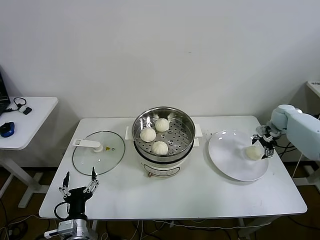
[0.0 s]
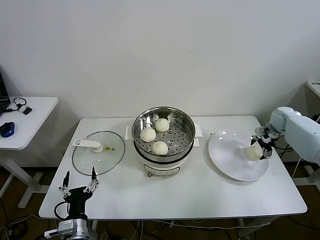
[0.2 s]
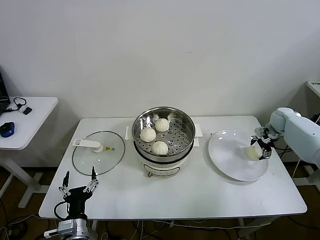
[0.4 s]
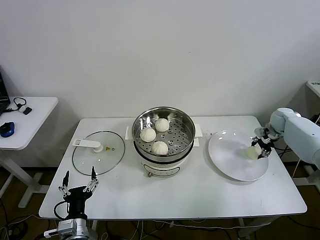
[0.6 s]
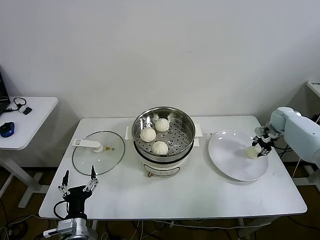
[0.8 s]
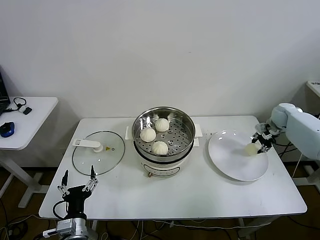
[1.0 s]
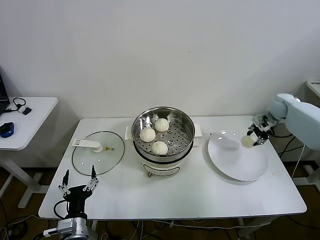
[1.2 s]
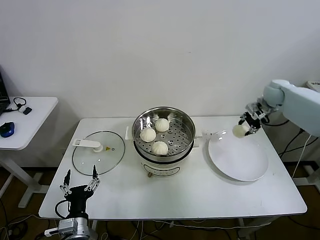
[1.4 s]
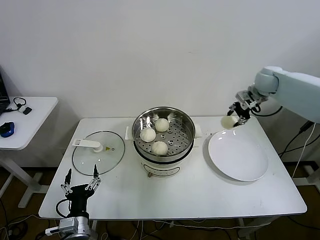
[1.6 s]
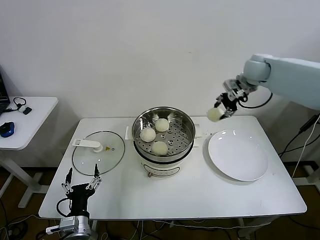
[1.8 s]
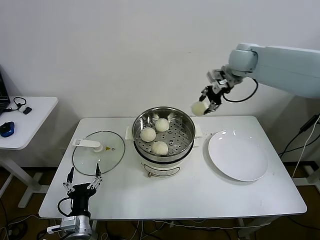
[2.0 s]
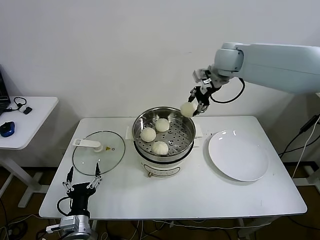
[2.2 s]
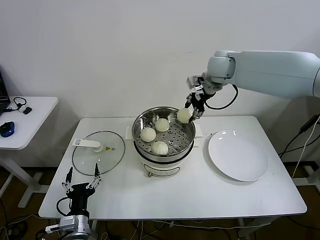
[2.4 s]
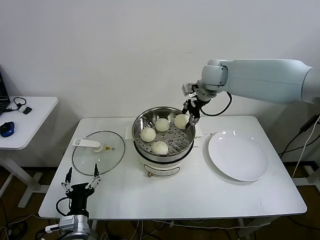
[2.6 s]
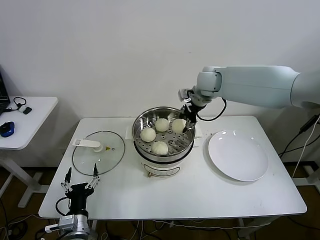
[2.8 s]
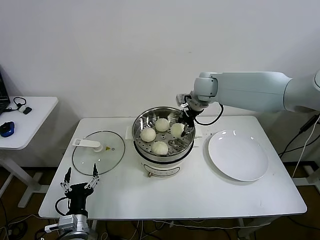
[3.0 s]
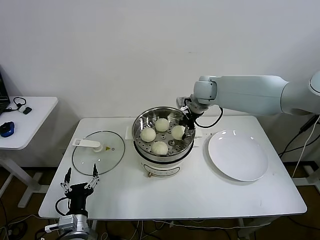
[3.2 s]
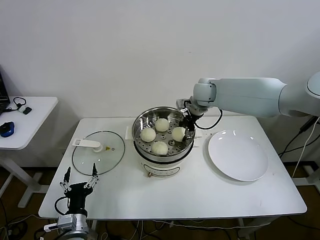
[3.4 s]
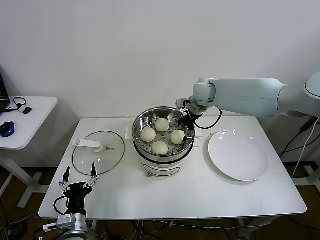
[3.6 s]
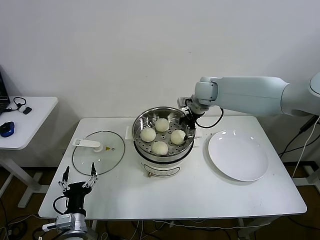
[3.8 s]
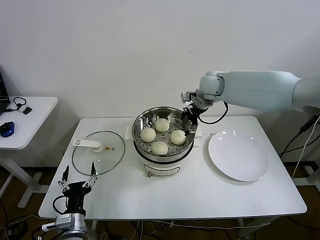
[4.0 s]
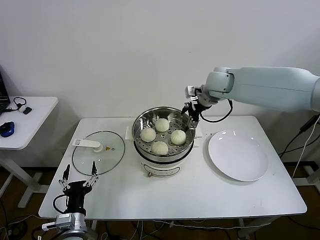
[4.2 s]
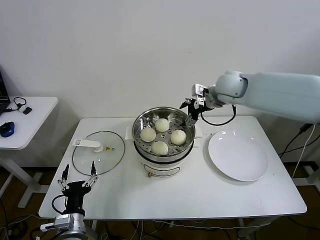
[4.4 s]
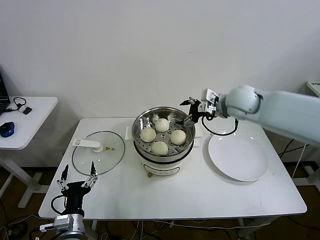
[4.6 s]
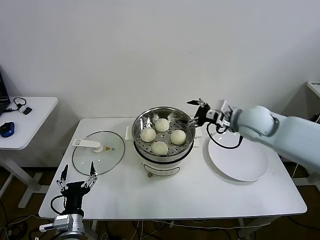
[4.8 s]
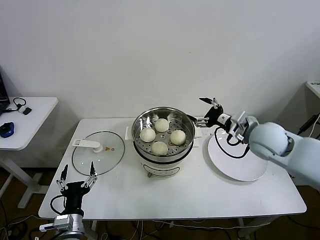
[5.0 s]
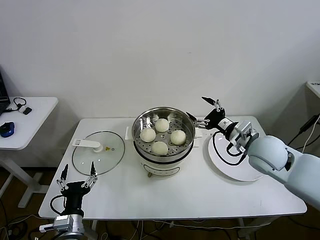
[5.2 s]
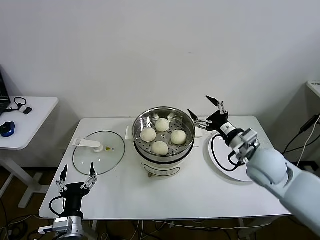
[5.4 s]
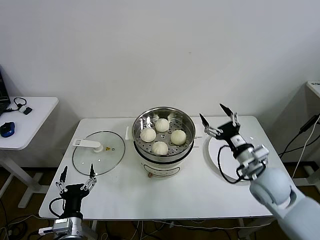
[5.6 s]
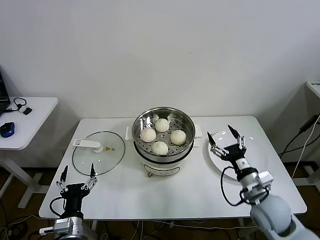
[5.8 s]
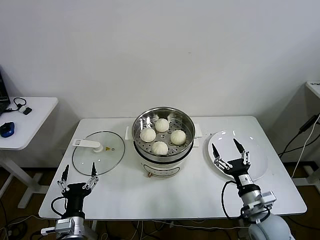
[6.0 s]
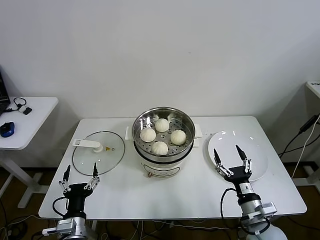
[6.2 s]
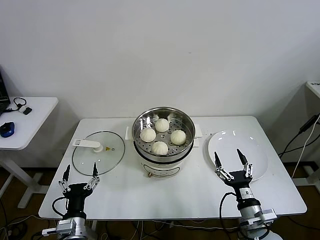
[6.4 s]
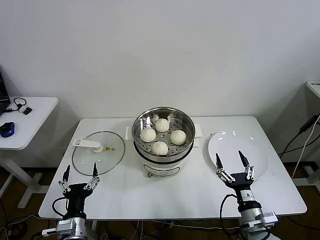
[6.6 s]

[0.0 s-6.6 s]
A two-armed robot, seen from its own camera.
Step, 0.8 to 3.6 s: Place the baozi on the steamer with right gripper.
0.0 to 1.6 s: The right gripper is displaced upward and to the left by approximately 20 cm, and closes its fingers.
1.6 to 3.2 s: The right gripper is displaced to the left by about 20 cm.
3.2 to 5.0 s: The right gripper shifts approximately 25 cm backward and to the right, and opens its fingers.
5.0 to 6.6 s: The right gripper travels backward and downward by approximately 30 cm.

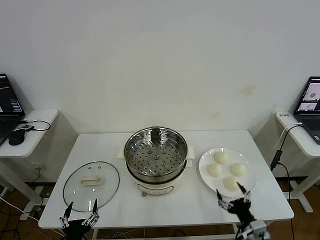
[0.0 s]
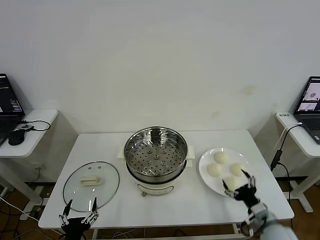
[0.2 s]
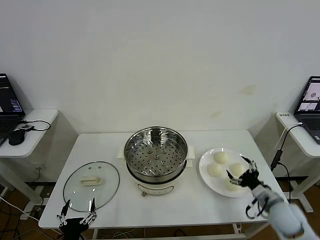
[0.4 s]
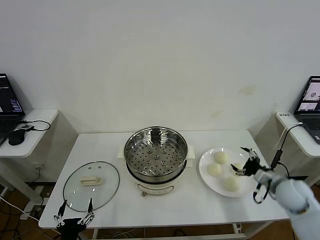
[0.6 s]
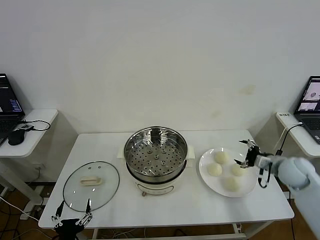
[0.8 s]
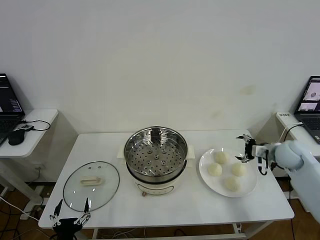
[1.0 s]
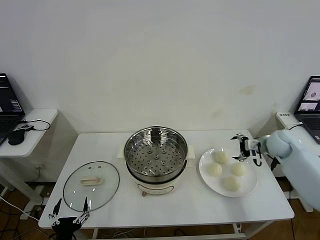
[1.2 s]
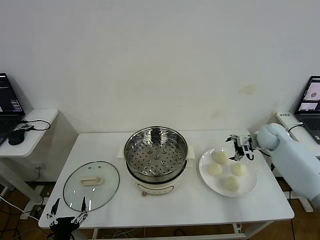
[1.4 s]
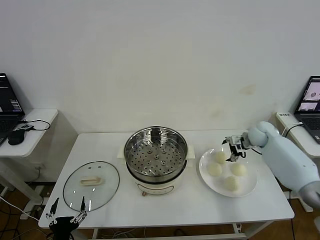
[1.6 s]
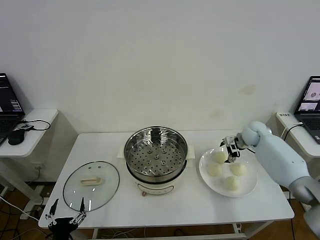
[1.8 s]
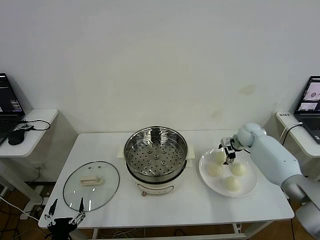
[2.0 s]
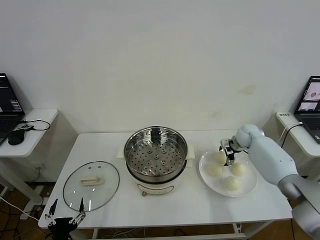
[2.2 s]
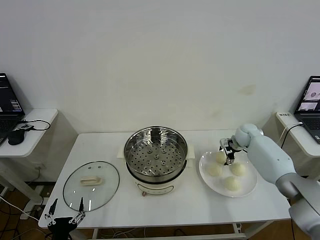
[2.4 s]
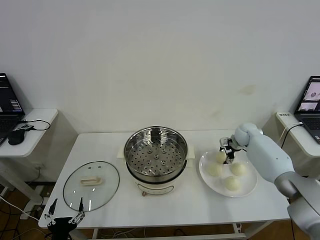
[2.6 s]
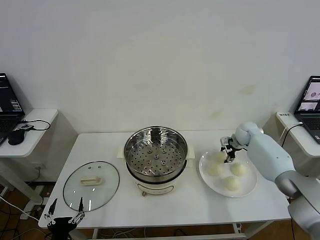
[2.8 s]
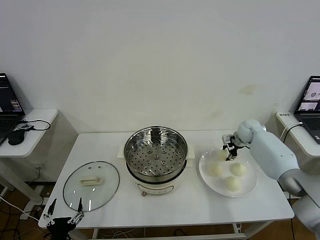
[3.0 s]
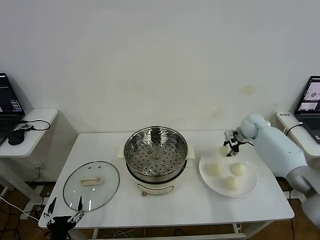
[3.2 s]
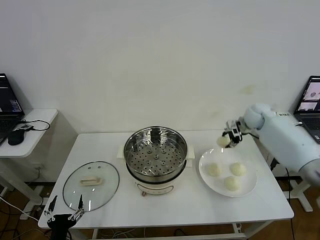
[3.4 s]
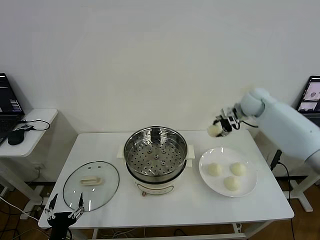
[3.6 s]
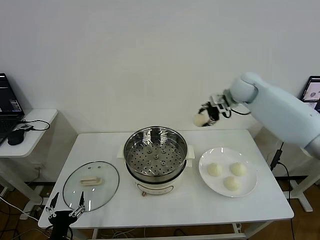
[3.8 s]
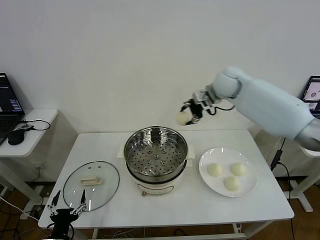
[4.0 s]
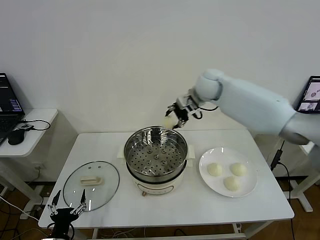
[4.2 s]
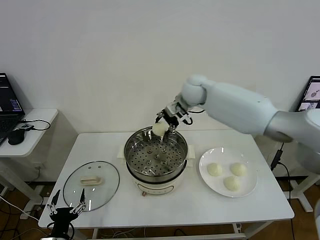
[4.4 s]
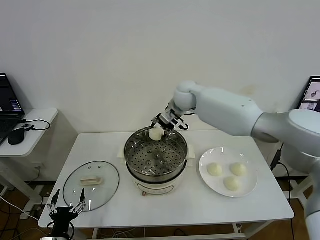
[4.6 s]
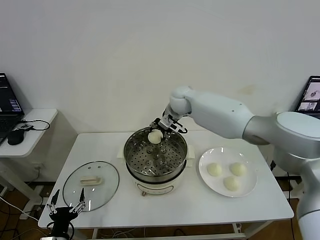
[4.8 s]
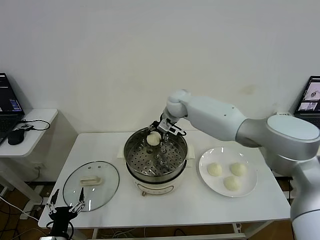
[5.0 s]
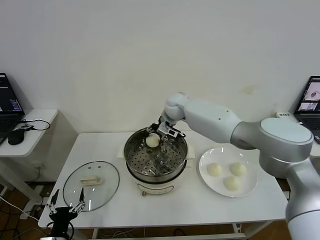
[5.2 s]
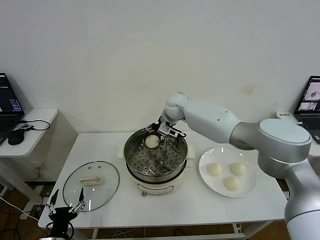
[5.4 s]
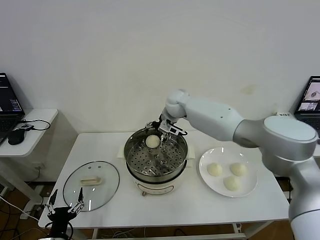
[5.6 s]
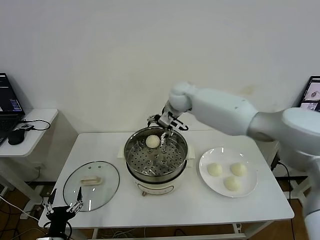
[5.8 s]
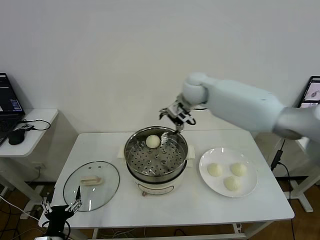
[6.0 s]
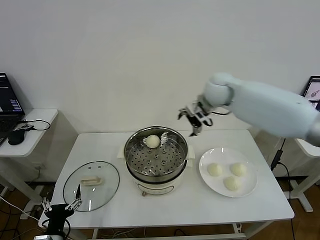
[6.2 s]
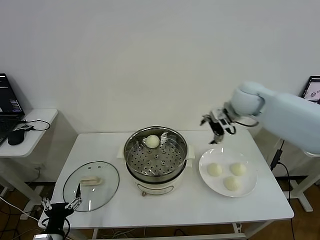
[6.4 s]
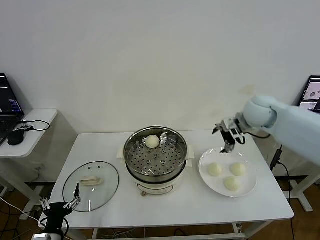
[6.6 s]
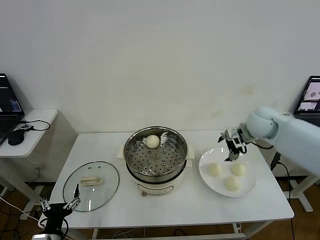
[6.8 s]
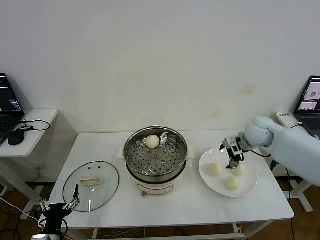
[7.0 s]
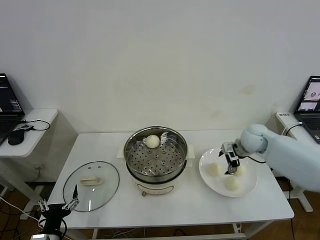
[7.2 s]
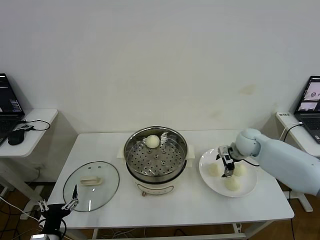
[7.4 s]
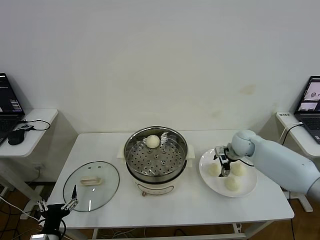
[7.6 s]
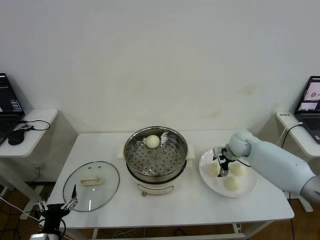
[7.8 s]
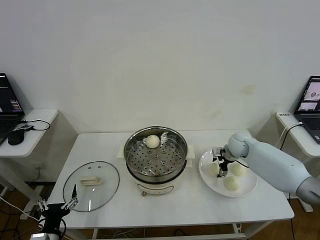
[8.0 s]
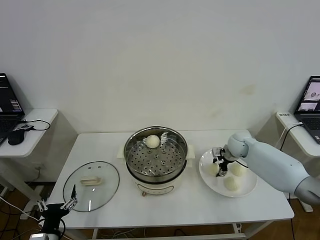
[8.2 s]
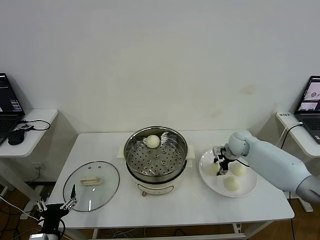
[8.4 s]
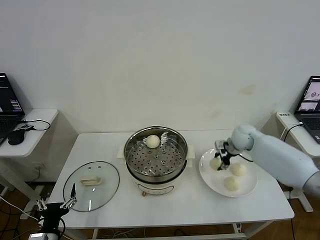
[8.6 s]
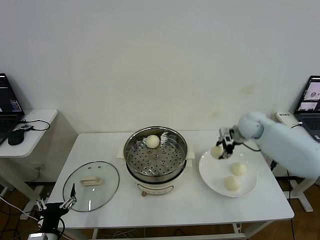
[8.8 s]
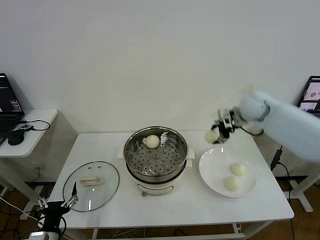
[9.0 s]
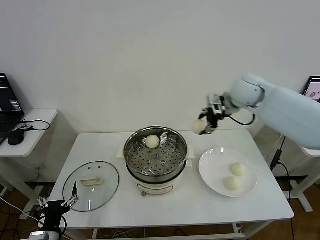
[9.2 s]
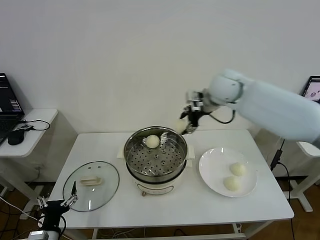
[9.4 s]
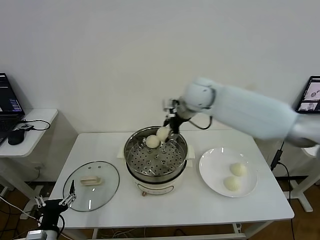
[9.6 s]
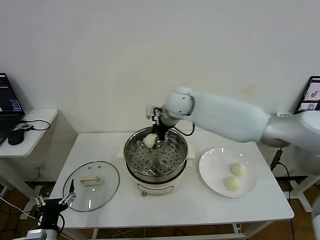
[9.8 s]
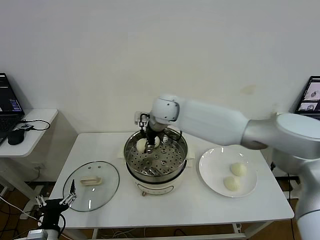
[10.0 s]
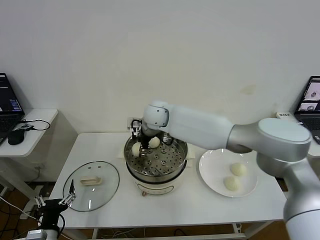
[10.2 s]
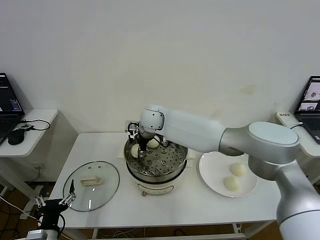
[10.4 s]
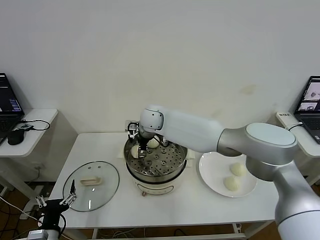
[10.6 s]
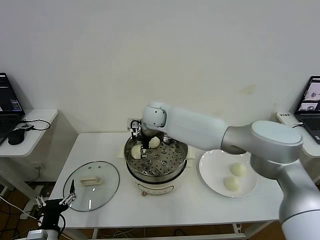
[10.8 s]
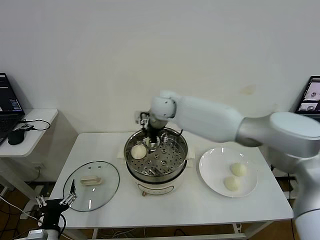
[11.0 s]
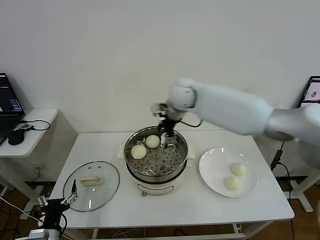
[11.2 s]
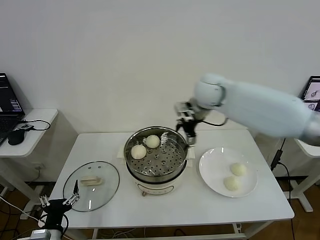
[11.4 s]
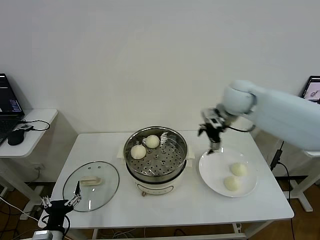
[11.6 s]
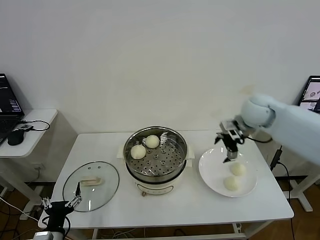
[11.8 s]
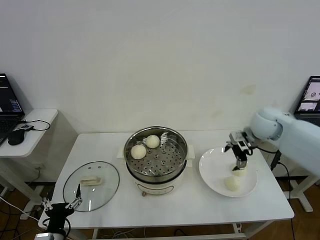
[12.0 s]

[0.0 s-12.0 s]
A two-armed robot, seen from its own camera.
Step, 0.0 to 2.8 s: Grasp the baozi in the plate with right gripper.
Step, 3.0 to 5.6 s: Place the baozi on the steamer with right gripper.
Step, 5.8 to 8.4 s: Grasp the baozi in the plate with right gripper.
Step, 8.6 to 10.6 s: Place the baozi on the steamer with right gripper.
1.6 to 3.0 s: The right gripper closes.
3.0 to 4.4 s: The right gripper is displaced to the left and upward by about 30 cm.
4.4 to 6.0 s: The right gripper moves to the right, about 5 cm, and opens its fingers.
6.0 to 7.6 s: The right gripper is displaced downward and to the right by some 25 cm.
7.6 to 9.0 s: The right gripper shifts some 20 cm upward, and closes.
9.0 to 10.4 s: The right gripper moves to the left, some 30 cm.
10.4 to 12.0 s: The right gripper moves to the right, roughly 35 cm, and opens its fingers.

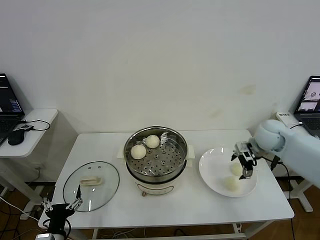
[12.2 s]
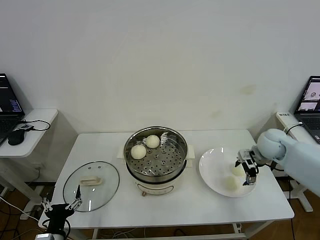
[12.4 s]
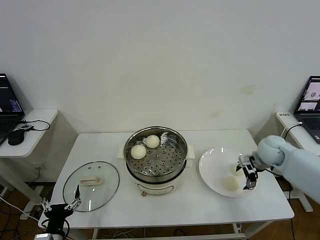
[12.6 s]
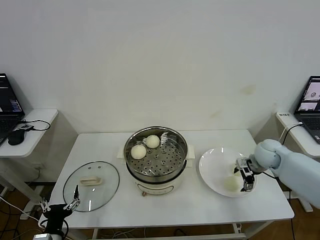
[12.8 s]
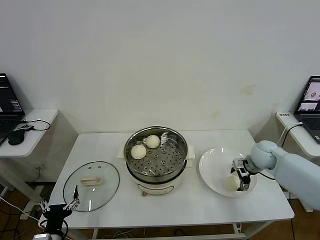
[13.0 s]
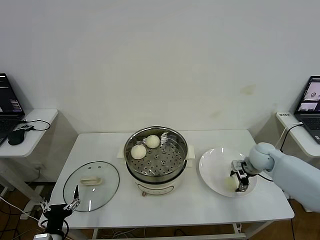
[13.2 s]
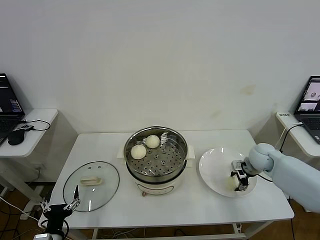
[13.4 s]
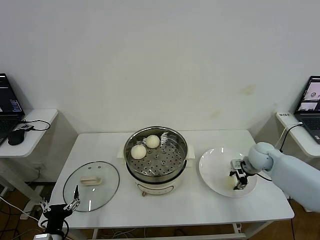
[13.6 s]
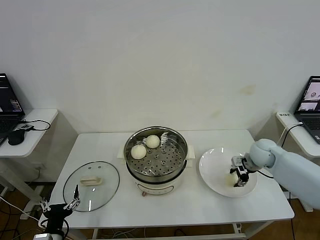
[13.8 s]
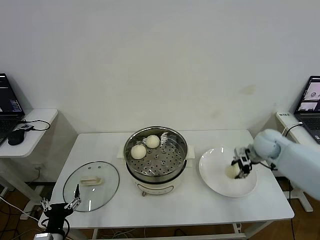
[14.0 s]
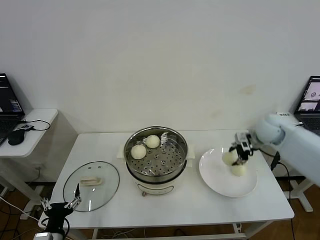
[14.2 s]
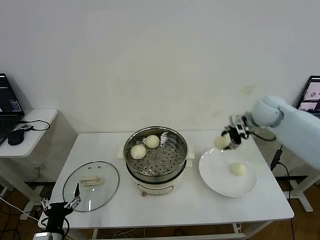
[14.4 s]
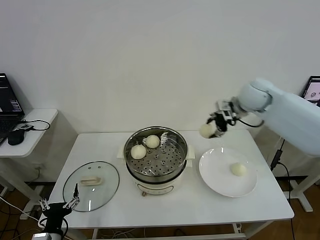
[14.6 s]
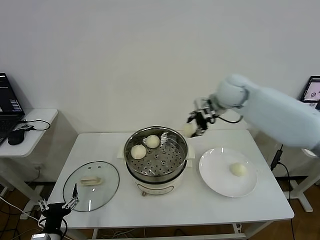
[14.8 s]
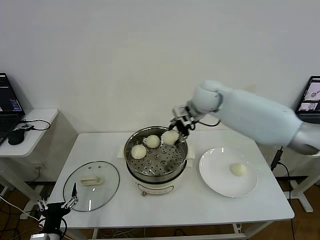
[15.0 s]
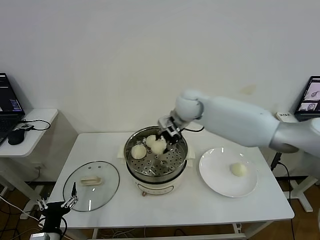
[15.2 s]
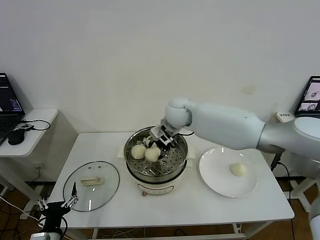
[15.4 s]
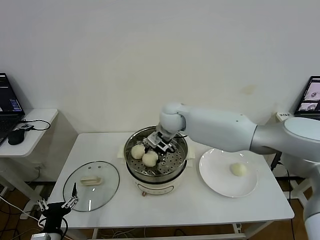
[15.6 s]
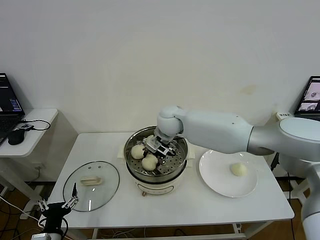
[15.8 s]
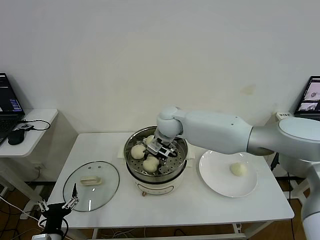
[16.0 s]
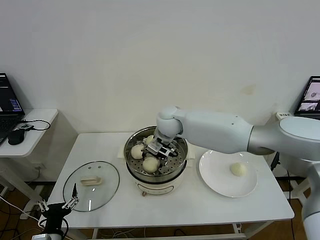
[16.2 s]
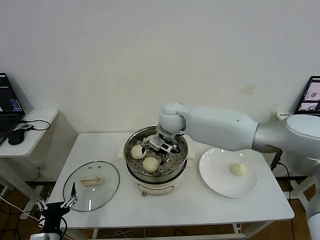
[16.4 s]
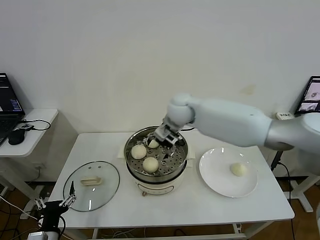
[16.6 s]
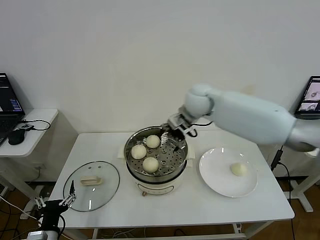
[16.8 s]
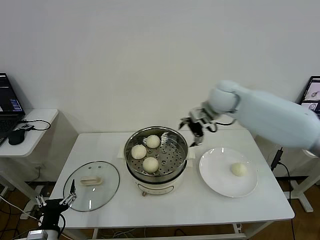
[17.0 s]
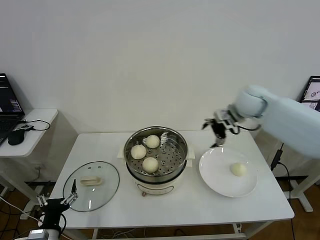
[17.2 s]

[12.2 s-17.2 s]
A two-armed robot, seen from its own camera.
Step, 13.6 to 16.2 s: Place the baozi on the steamer with right gripper.
12.2 to 13.8 s: The right gripper moves downward, about 5 cm, and closes its fingers.
13.8 to 15.6 s: The right gripper goes some 35 cm to the left.
15.6 to 17.2 s: The right gripper moves to the right, approximately 25 cm, and opens up.
